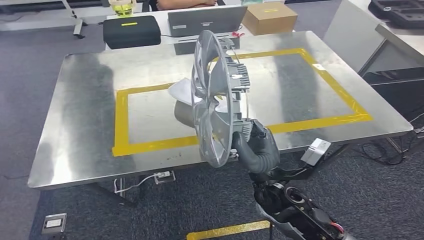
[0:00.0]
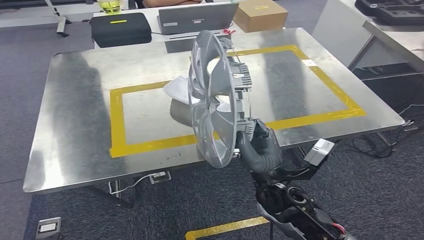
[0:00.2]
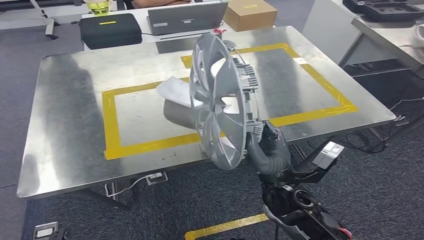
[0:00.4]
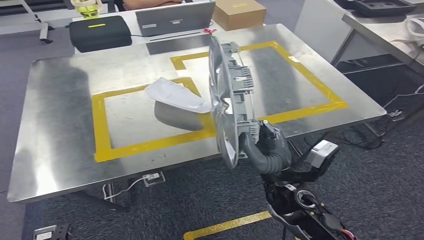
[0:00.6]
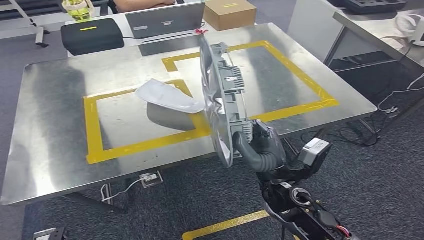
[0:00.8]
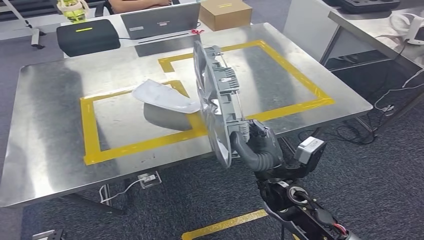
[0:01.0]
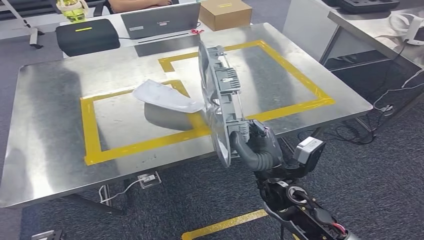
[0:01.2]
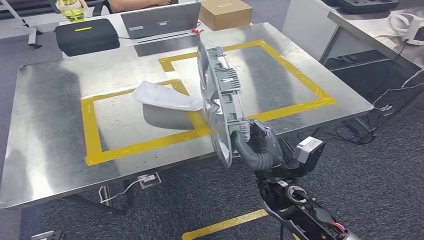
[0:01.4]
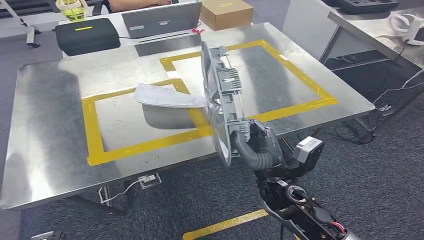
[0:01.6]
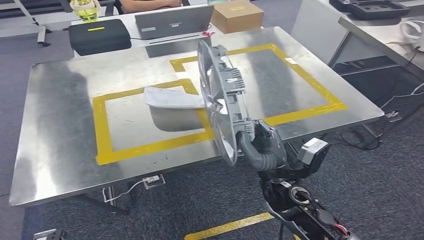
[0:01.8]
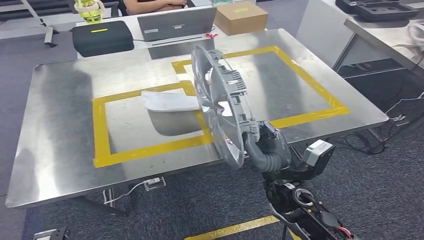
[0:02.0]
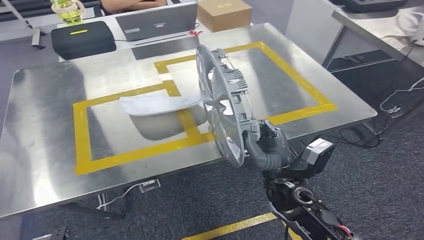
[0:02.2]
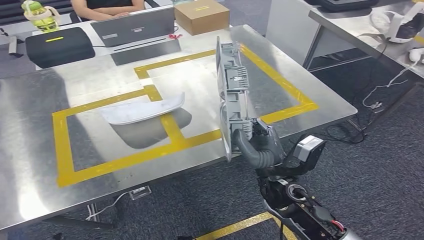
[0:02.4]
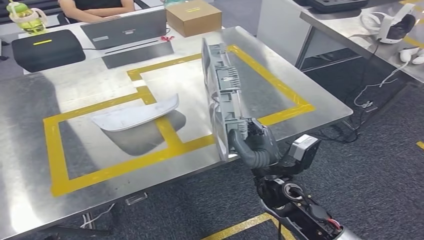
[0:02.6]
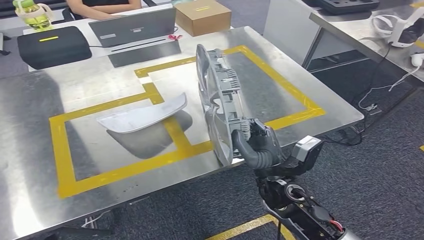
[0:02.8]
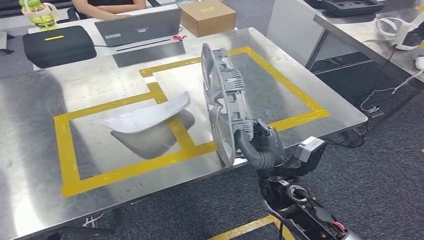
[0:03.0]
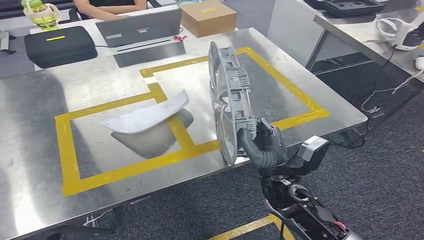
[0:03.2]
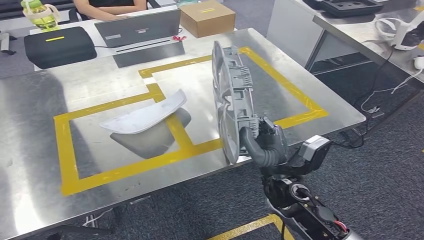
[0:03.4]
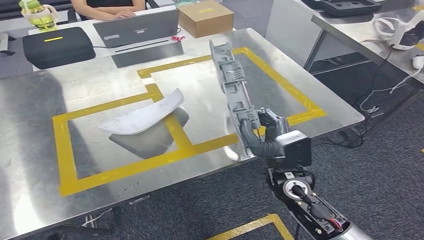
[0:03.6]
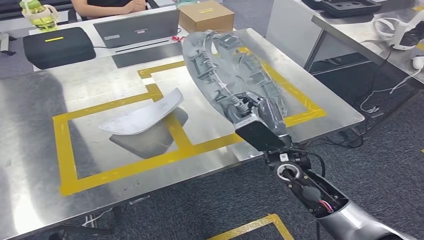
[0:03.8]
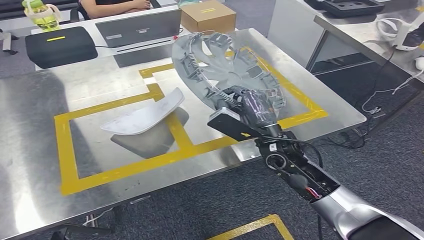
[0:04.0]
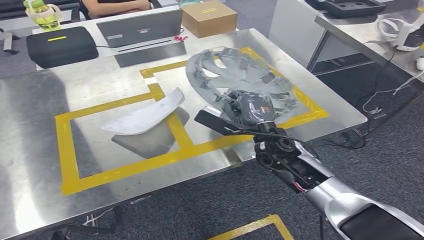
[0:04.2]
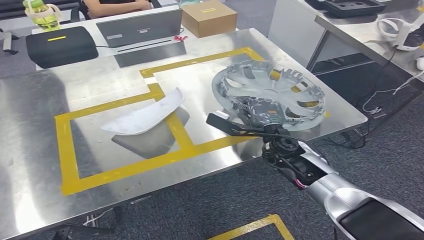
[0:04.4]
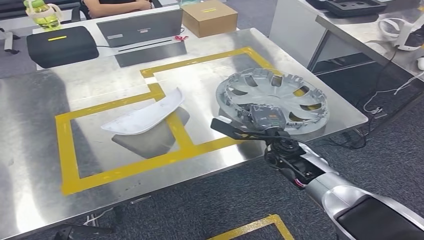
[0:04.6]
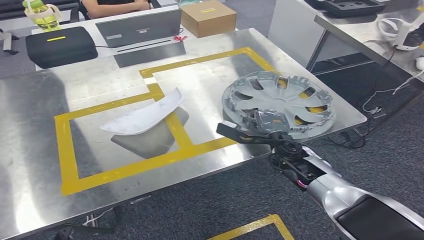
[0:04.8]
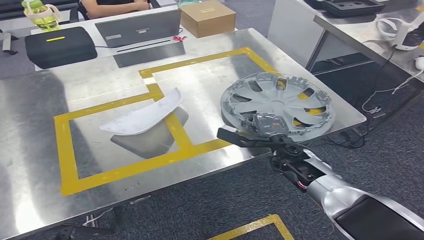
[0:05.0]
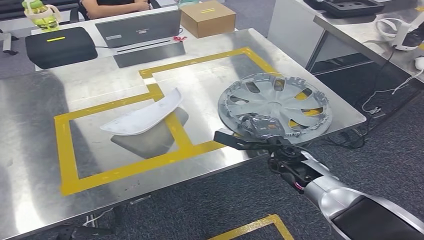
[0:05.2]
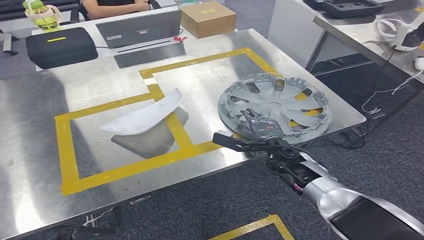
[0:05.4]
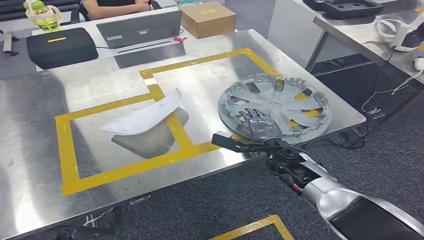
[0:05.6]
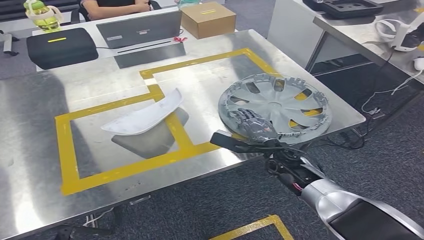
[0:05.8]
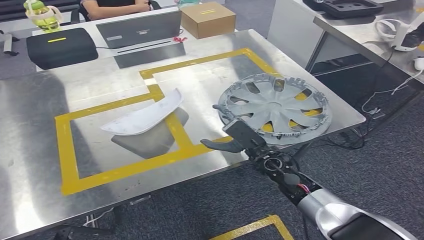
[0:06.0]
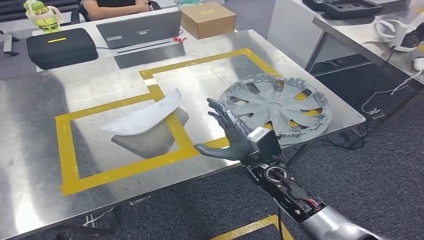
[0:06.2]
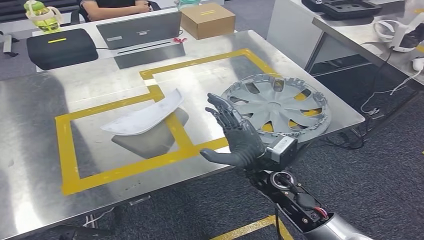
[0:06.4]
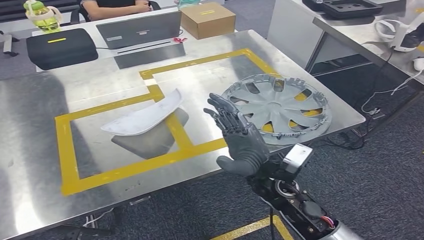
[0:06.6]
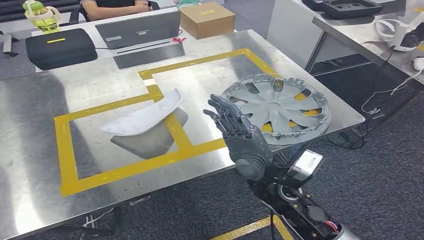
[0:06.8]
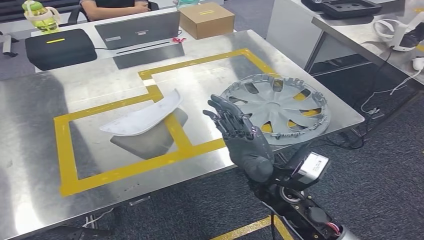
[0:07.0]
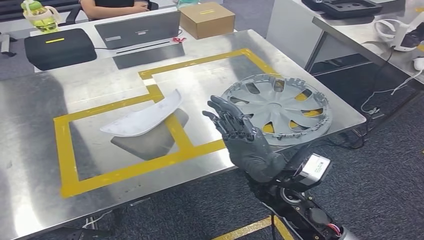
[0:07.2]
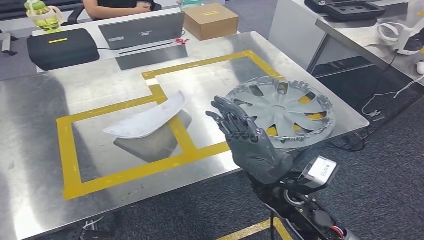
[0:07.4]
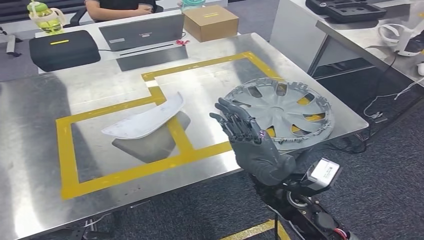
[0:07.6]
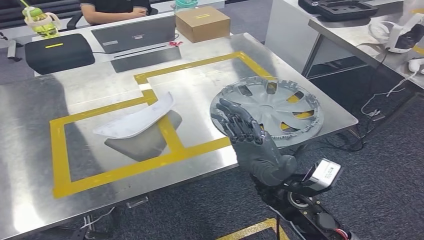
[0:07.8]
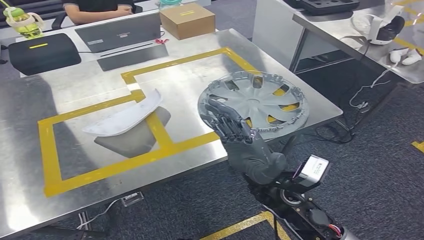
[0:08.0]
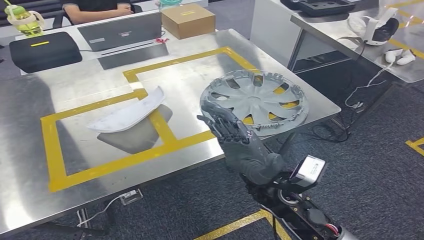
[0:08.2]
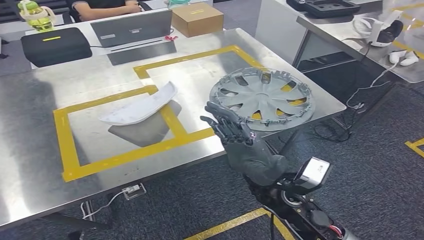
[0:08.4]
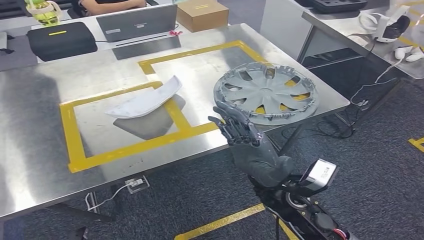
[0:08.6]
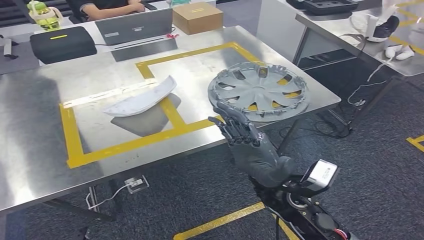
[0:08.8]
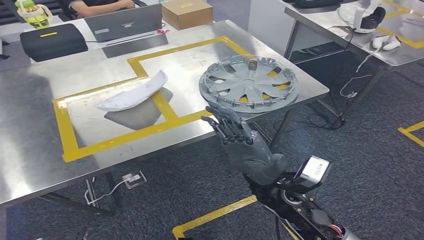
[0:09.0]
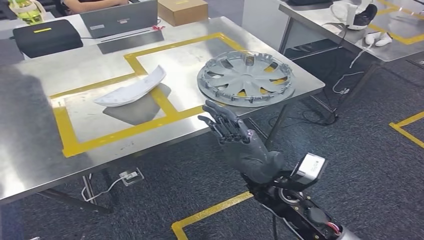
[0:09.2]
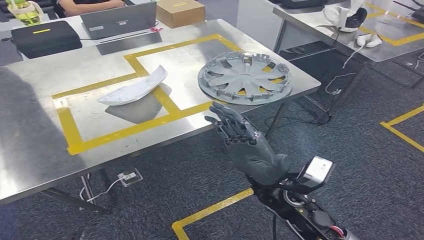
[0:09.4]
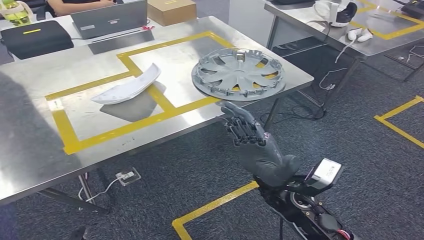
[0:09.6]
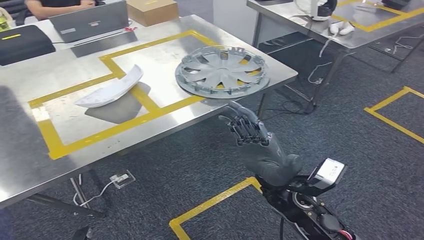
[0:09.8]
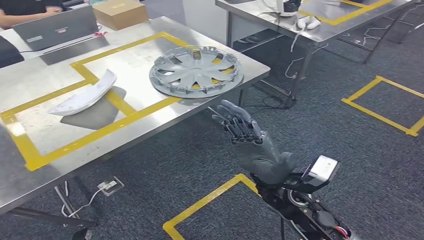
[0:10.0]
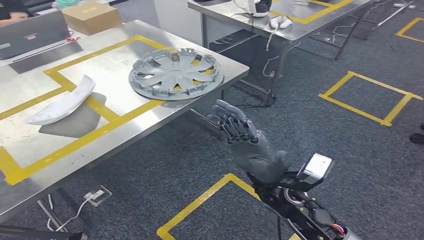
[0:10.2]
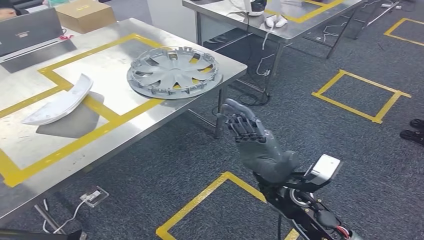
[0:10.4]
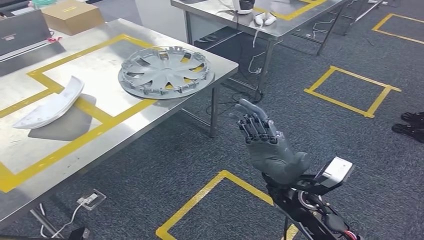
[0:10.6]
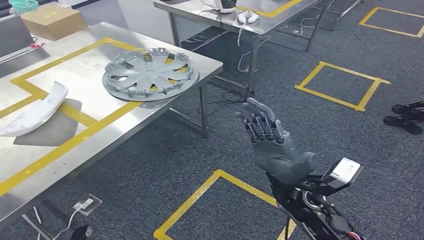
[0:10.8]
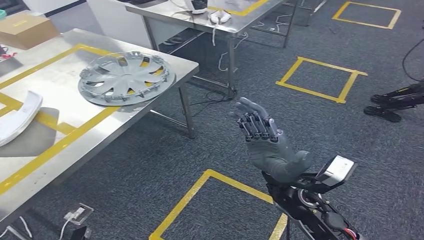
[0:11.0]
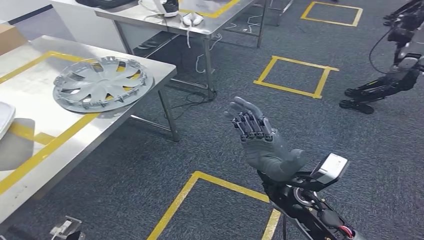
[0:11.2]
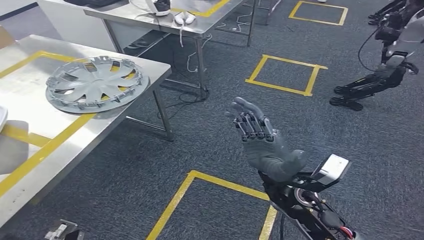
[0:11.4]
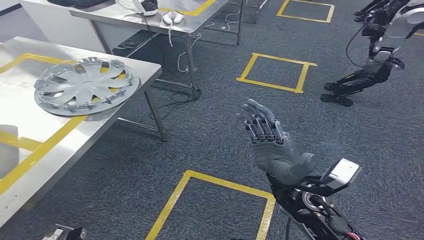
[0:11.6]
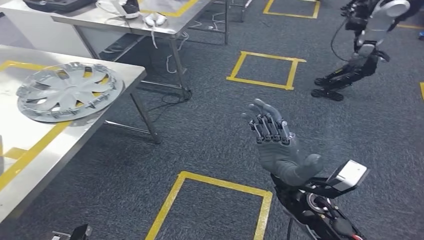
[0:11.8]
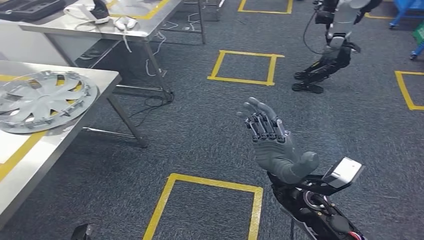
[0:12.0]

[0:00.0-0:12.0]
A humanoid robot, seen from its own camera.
Step, 0:00.0 to 0:02.6: Move the small component to the workbench.
Step, 0:02.8 to 0:07.2: Insert the small component into the corresponding slot on the workbench.
0:04.4 to 0:06.0: The right hand is displaced downward by about 5 cm.

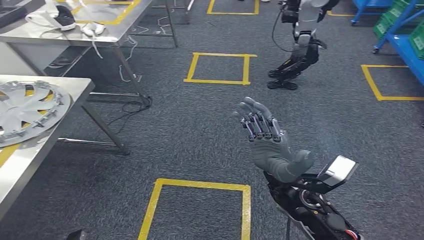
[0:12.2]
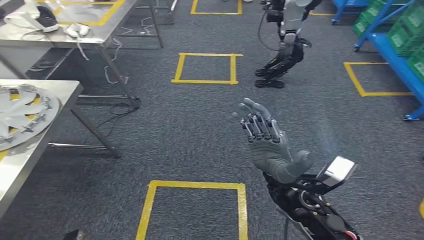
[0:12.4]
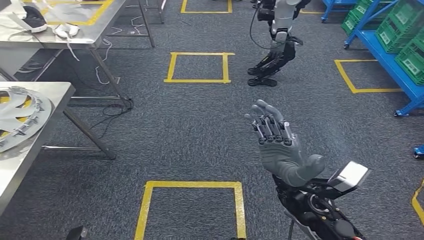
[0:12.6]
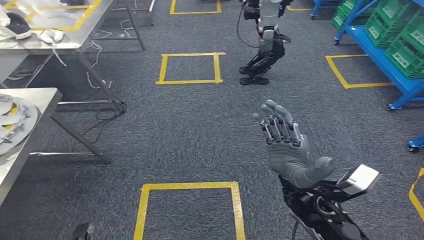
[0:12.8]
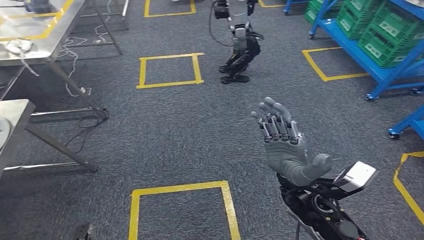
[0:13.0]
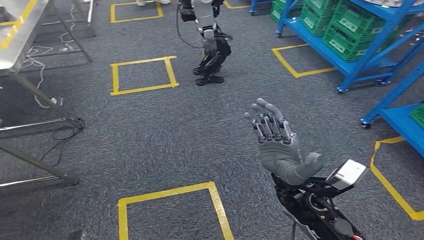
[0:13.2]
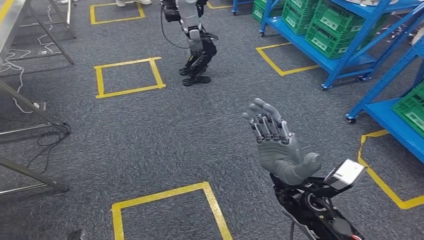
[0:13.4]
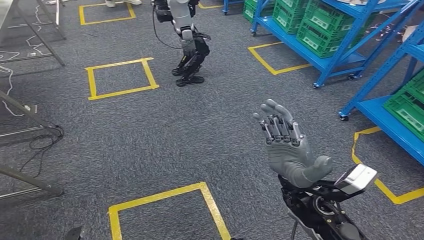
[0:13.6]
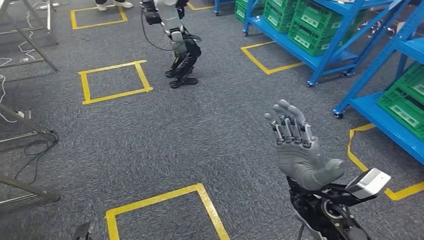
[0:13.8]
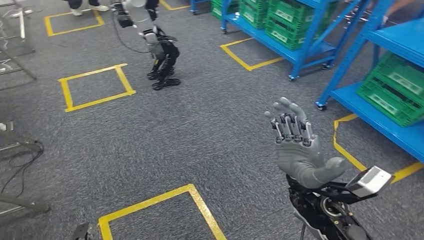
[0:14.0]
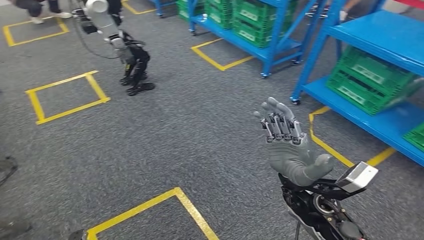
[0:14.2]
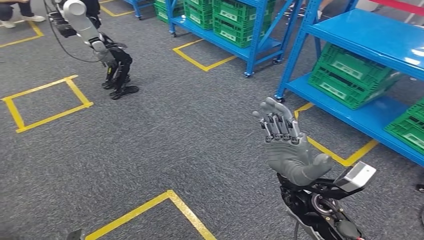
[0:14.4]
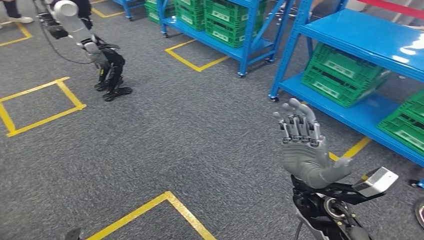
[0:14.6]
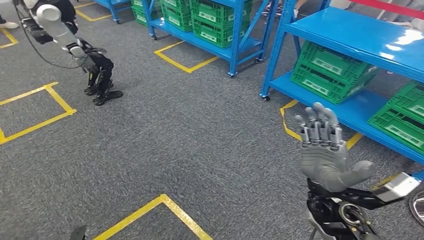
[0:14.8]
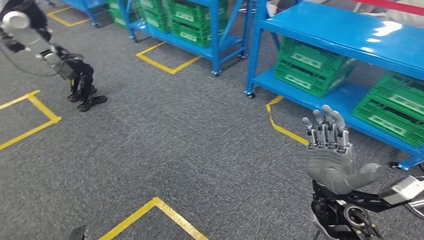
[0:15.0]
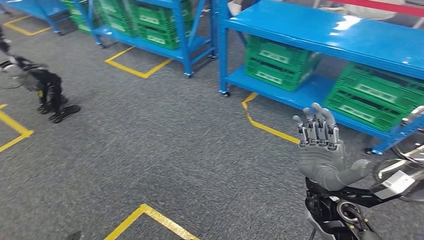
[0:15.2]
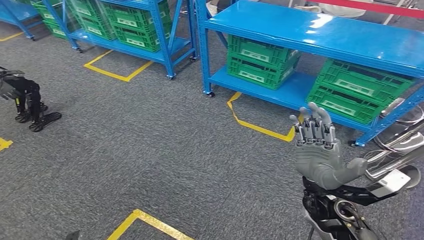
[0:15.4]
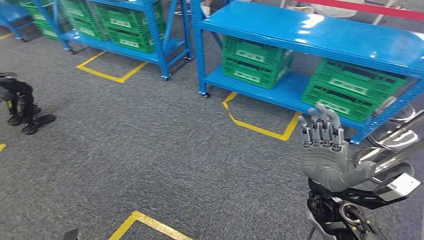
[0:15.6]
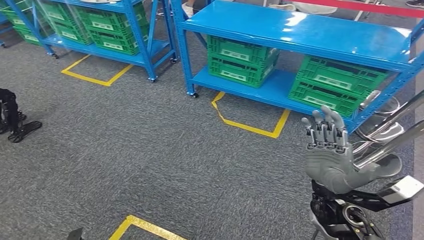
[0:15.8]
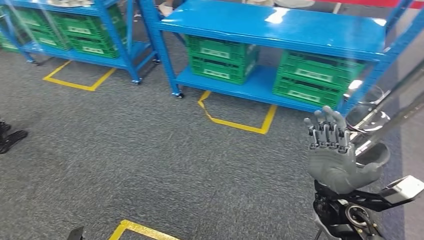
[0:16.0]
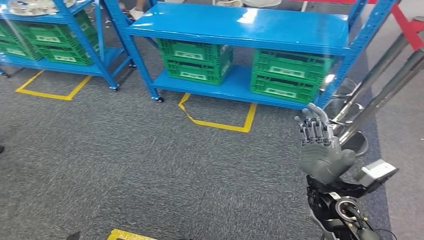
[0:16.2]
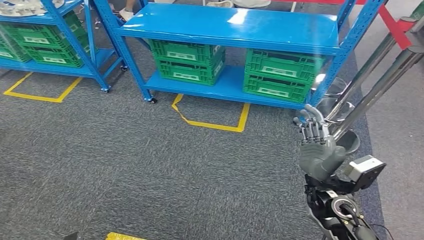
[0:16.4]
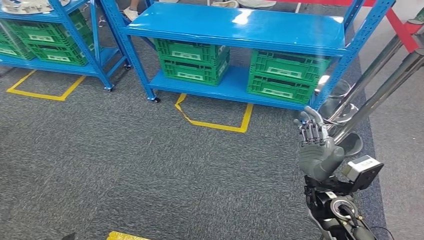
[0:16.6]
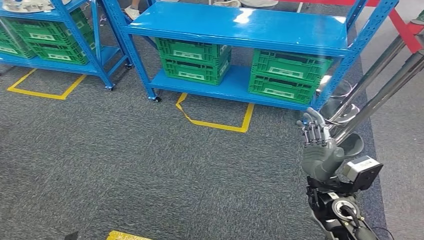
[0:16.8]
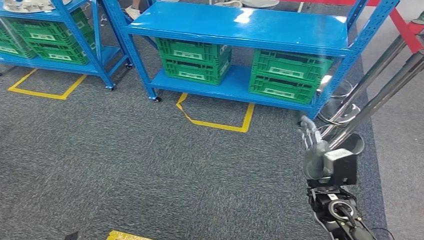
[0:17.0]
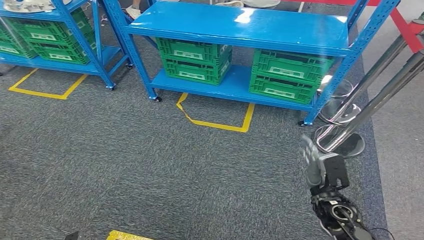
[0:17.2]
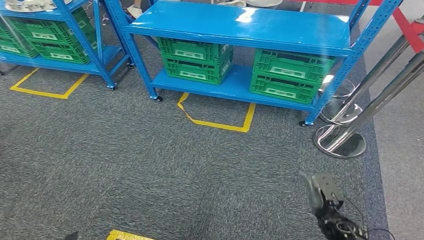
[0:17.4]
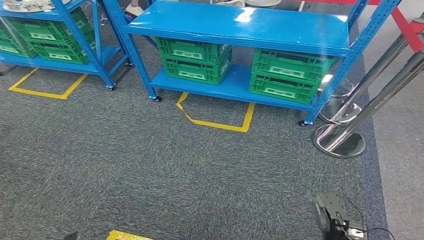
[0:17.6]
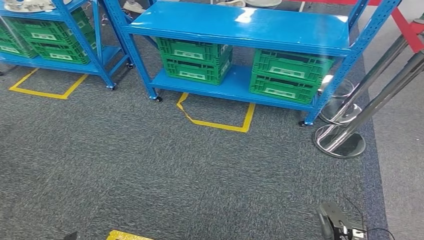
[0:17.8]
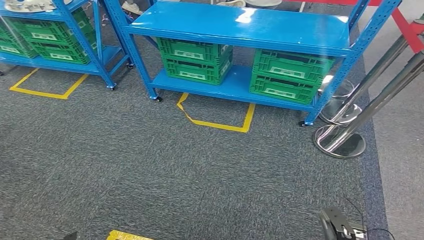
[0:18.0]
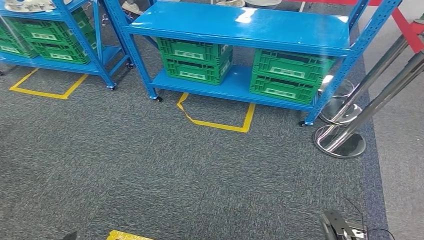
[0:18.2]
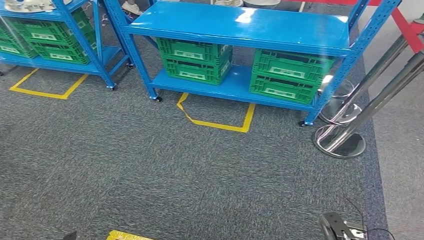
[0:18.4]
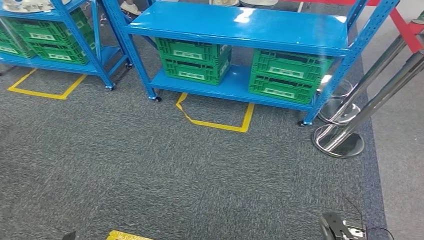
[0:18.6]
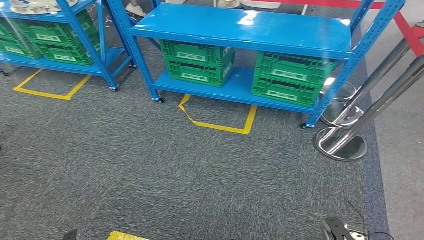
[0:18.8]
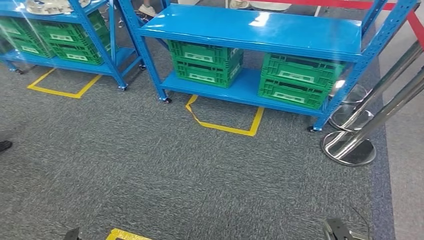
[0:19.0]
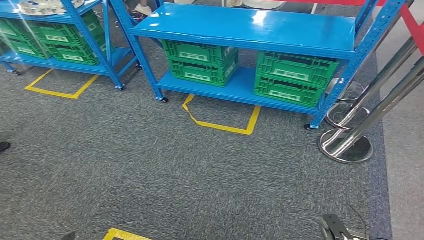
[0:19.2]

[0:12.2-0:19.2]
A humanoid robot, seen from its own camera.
0:17.8 to 0:19.2: There are only small adjustments of the hands.
